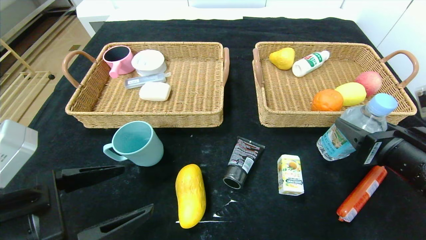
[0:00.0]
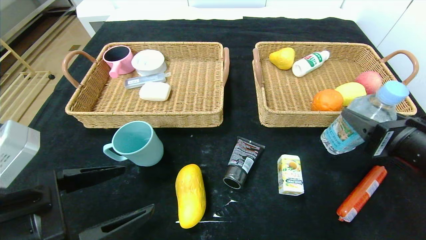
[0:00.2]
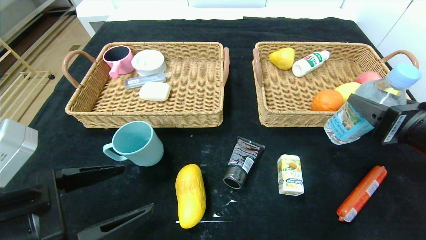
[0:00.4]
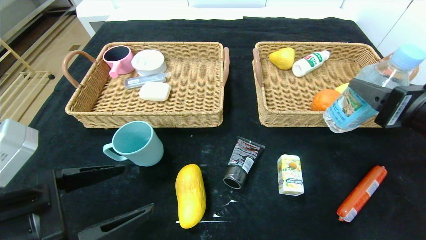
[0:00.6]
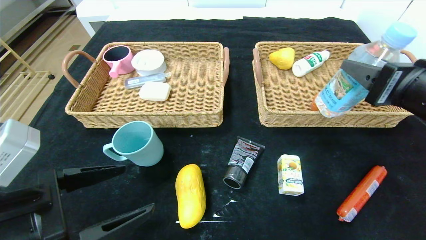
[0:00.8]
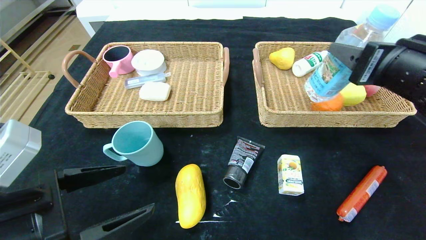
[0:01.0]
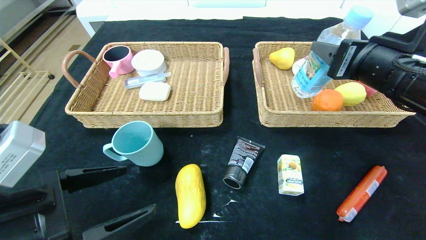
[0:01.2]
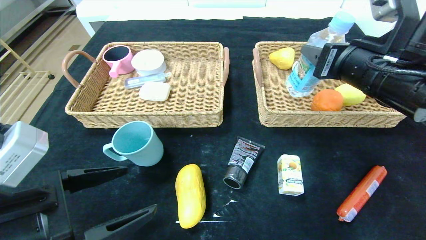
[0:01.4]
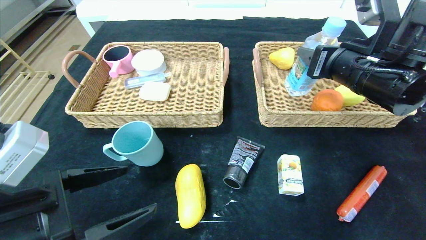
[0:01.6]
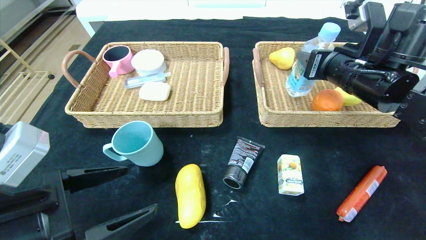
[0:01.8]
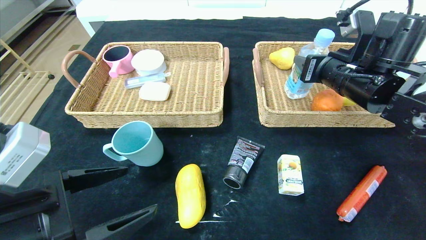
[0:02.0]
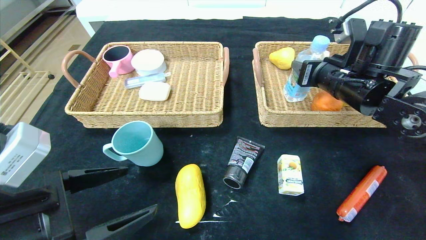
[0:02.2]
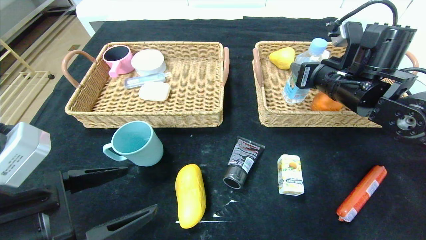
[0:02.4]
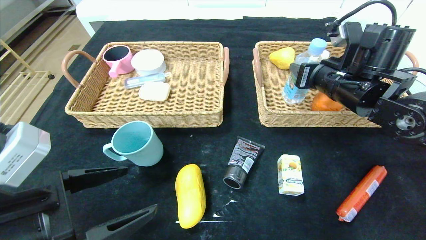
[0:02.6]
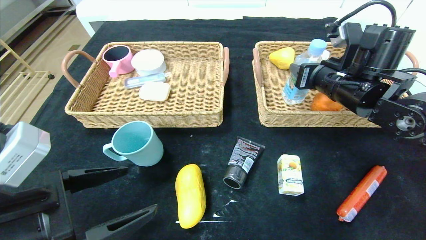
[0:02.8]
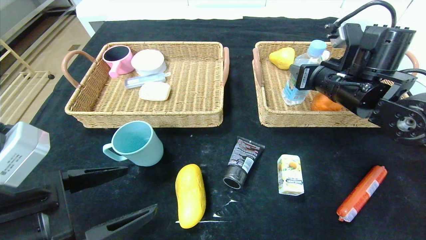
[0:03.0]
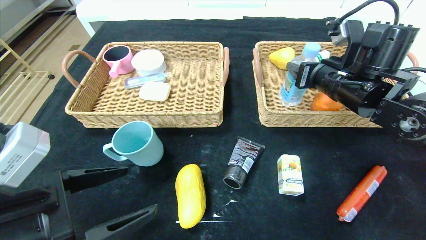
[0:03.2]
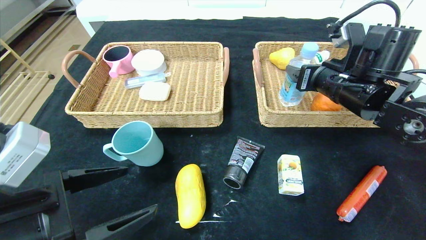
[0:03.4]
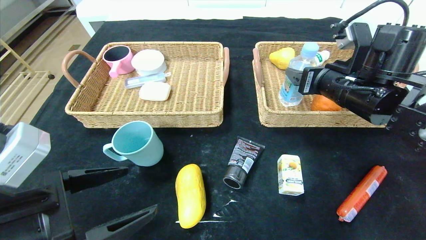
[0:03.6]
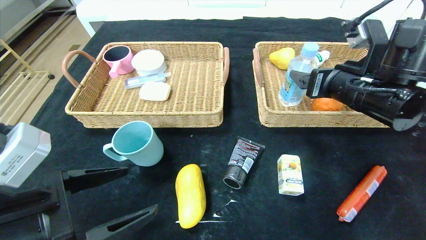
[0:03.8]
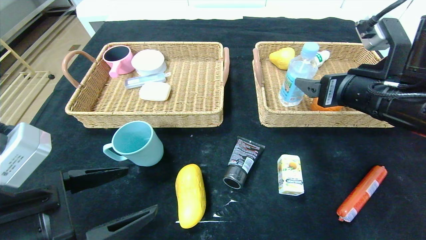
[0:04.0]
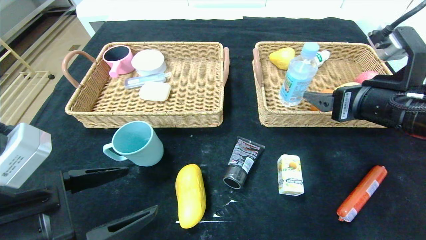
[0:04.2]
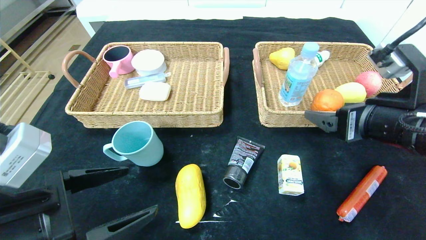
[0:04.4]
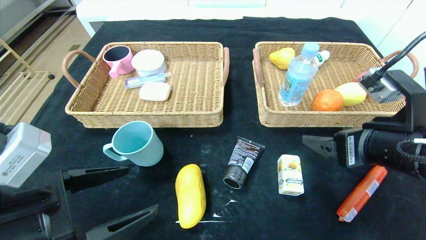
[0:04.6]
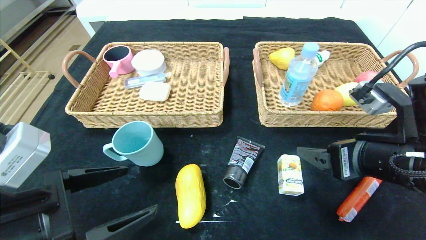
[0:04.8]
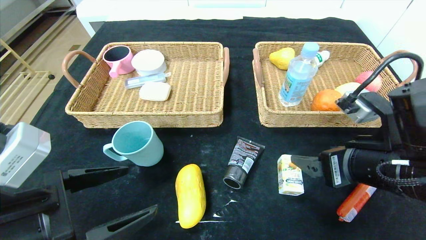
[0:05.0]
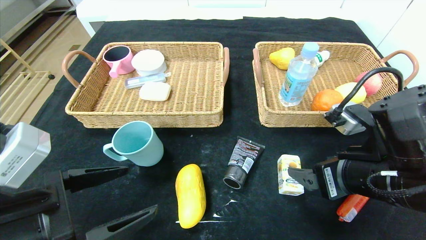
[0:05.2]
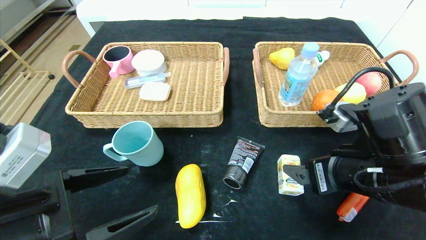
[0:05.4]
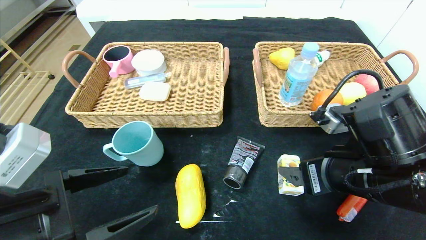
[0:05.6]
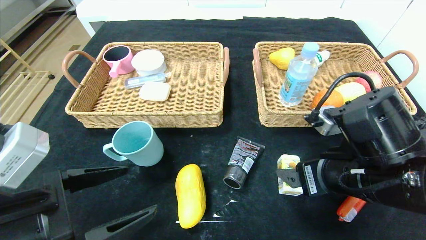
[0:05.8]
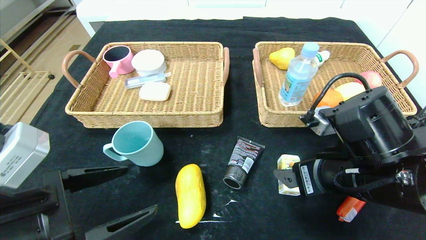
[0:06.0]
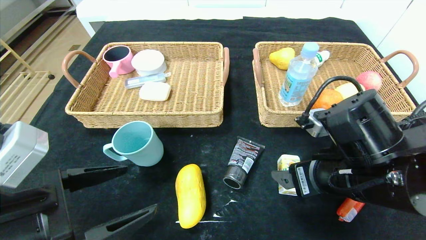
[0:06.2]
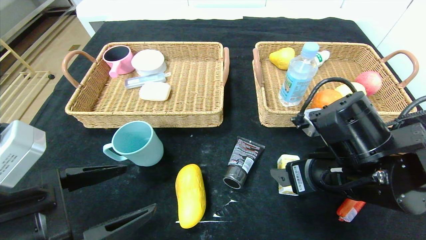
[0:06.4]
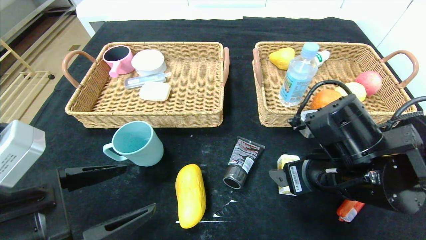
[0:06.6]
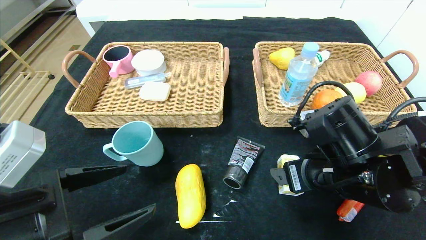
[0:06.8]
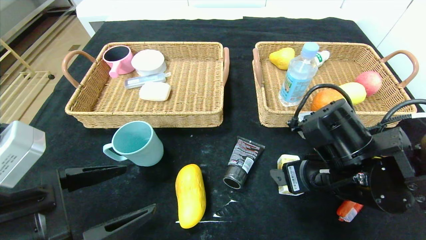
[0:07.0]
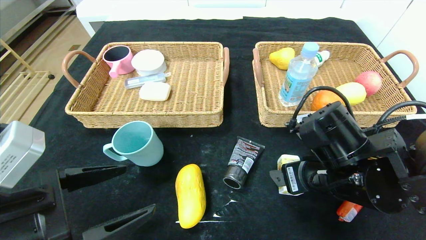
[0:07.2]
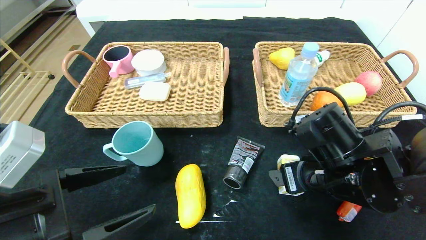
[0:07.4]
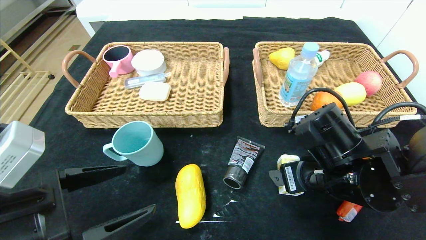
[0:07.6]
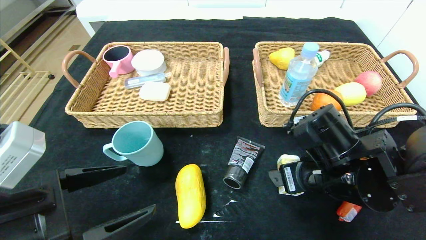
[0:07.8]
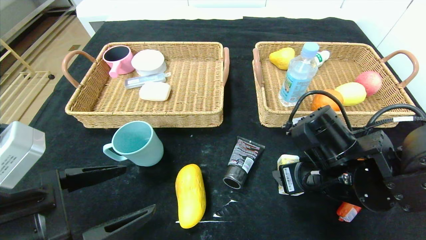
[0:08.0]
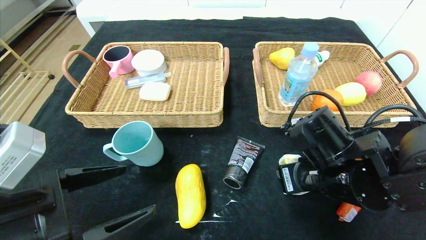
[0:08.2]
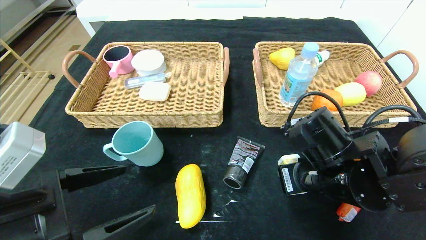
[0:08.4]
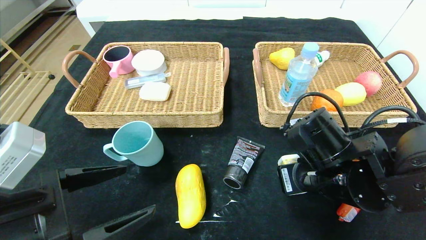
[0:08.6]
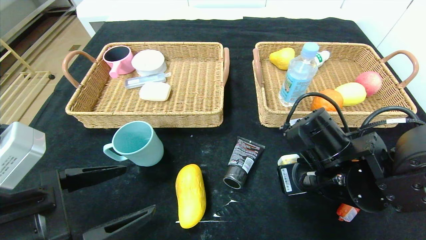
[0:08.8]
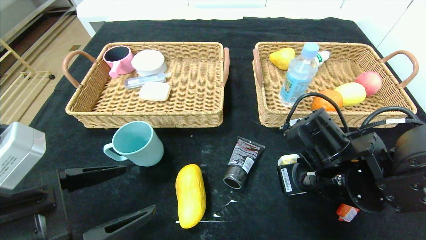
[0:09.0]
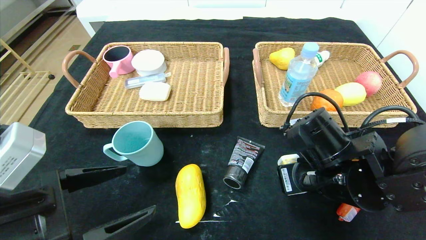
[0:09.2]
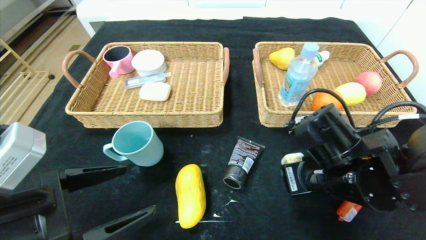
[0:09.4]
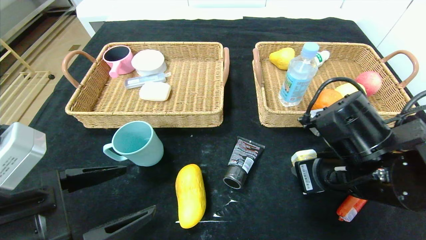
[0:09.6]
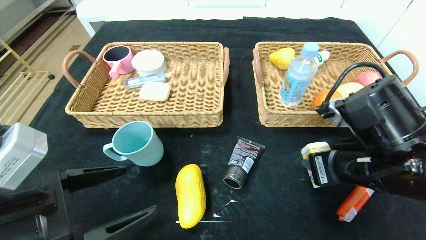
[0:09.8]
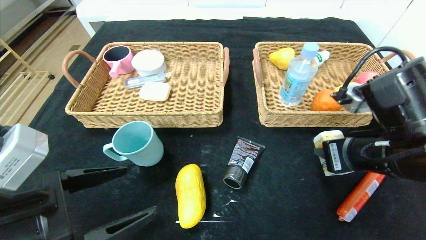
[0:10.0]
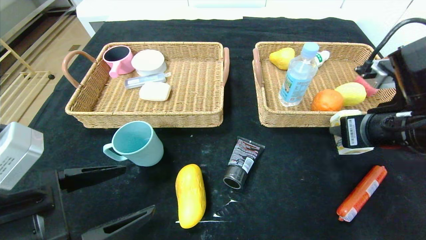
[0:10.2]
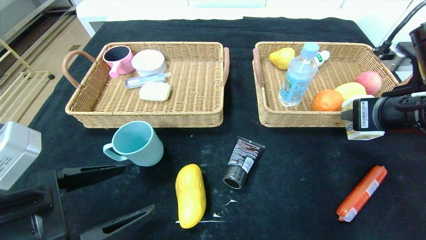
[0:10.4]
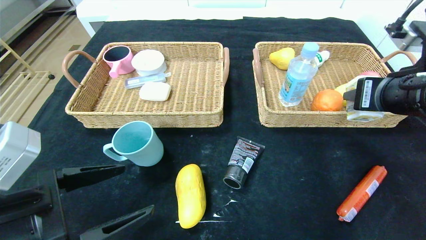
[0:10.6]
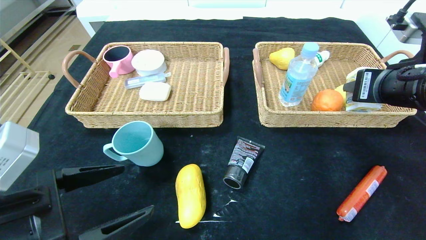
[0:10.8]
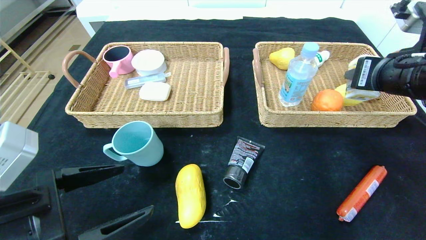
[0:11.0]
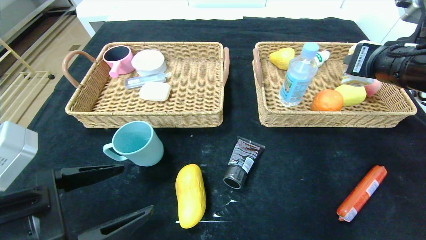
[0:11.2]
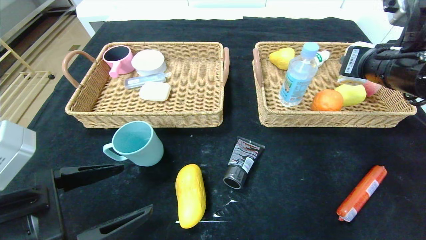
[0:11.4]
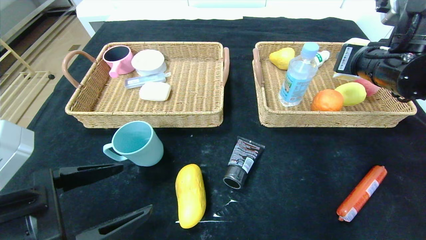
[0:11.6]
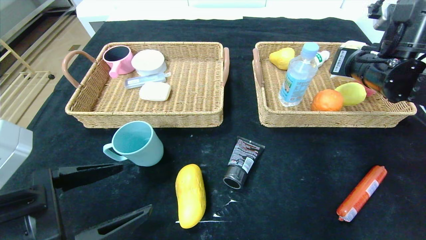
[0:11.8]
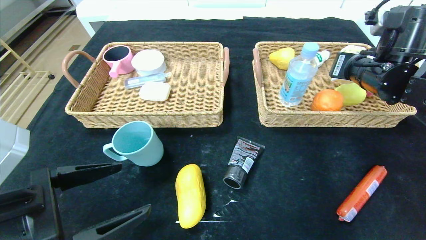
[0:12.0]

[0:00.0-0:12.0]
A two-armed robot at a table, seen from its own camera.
Step, 0:00.0 to 0:03.6: Grasp the soda water and put it in the right basket.
0:00.0 to 0:01.6: The right gripper shifts about 15 cm forward and upward.
0:01.6 to 0:03.0: The right gripper ends up some 5 cm from where it was.
0:03.0 to 0:04.4: The right gripper moves backward, roughly 15 cm, and opens its fingers.
0:04.4 to 0:06.0: The right gripper heads to the left and downward, covering approximately 10 cm.
0:06.0 to 0:07.6: The grippers move only a little.
0:07.6 to 0:09.0: The right gripper closes its fingers.
0:09.0 to 0:10.4: The right gripper shifts some 15 cm upward and to the right.
0:10.4 to 0:12.0: The right gripper shifts roughly 10 cm forward.

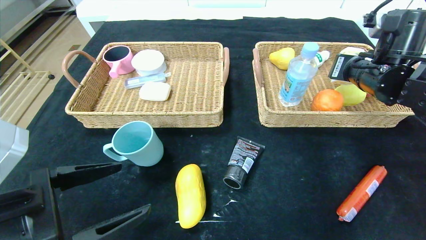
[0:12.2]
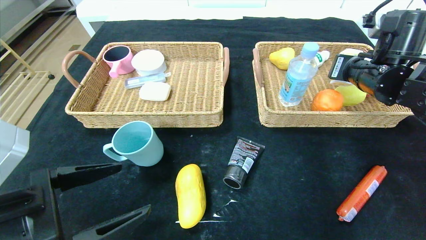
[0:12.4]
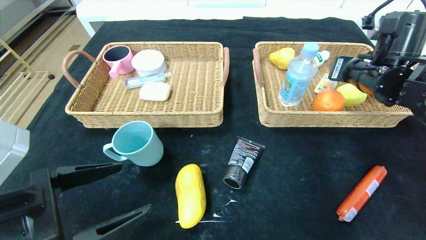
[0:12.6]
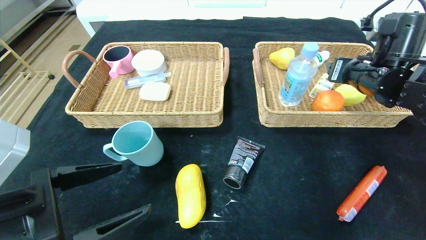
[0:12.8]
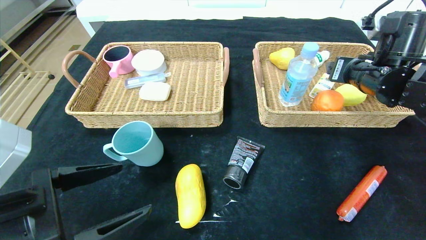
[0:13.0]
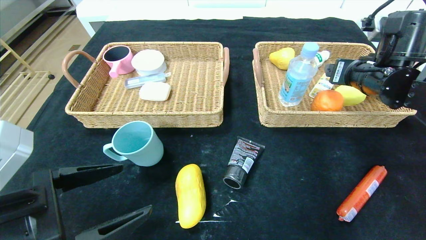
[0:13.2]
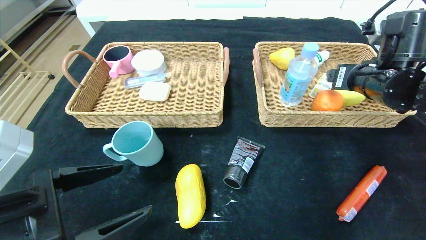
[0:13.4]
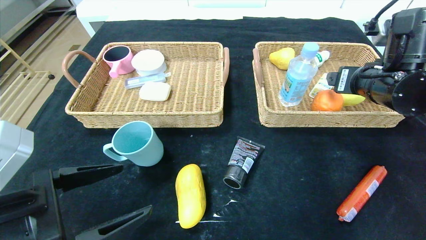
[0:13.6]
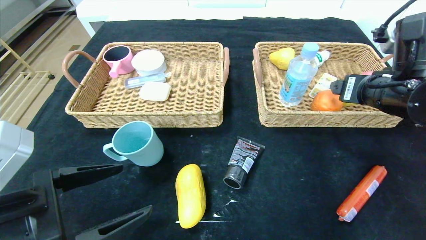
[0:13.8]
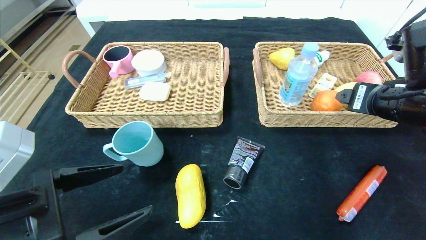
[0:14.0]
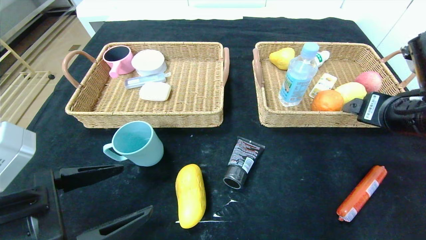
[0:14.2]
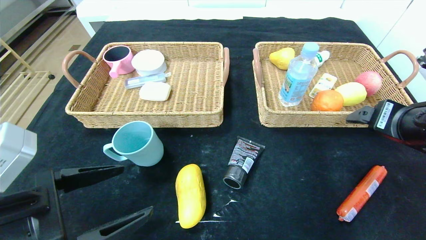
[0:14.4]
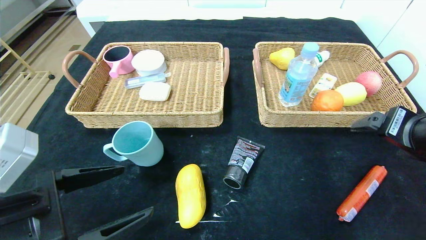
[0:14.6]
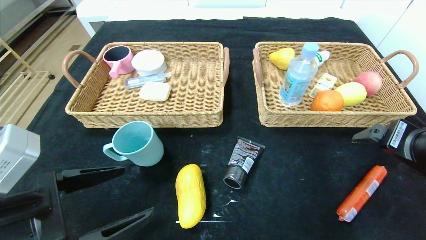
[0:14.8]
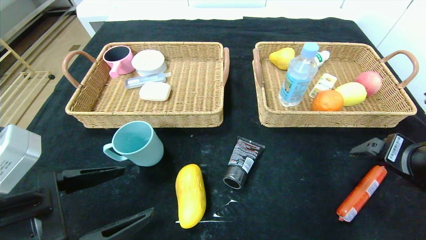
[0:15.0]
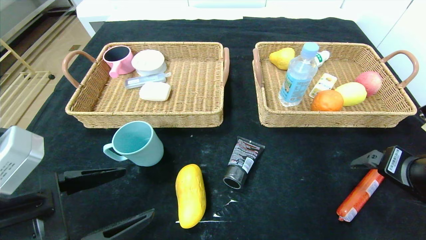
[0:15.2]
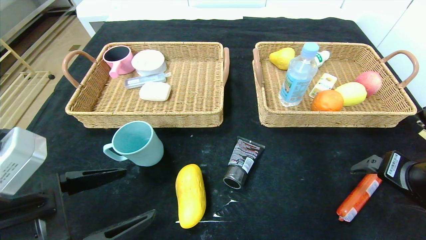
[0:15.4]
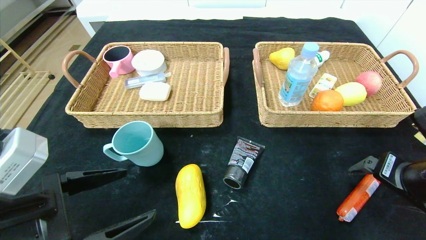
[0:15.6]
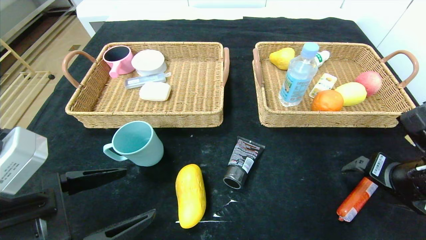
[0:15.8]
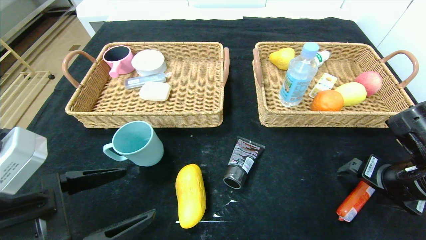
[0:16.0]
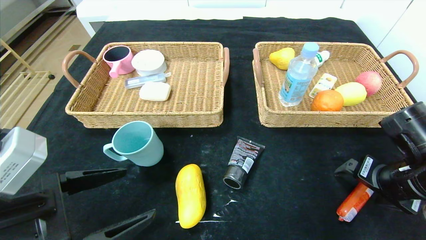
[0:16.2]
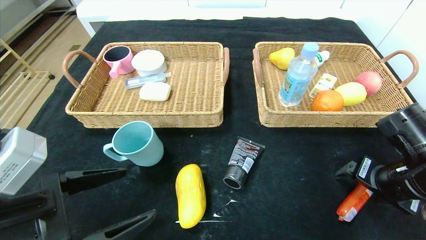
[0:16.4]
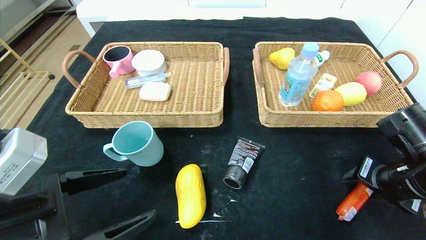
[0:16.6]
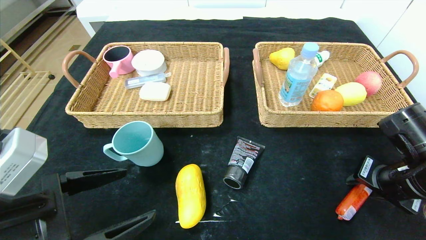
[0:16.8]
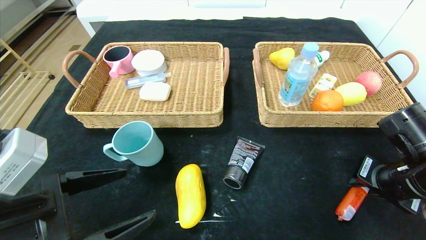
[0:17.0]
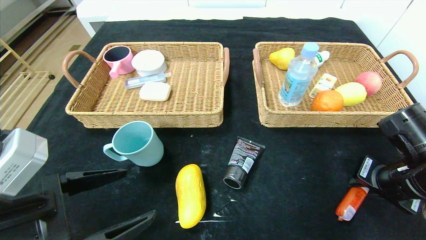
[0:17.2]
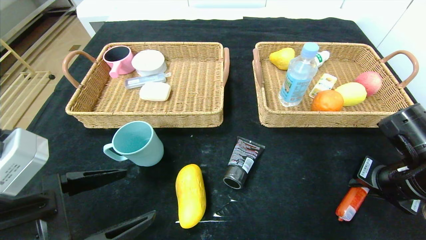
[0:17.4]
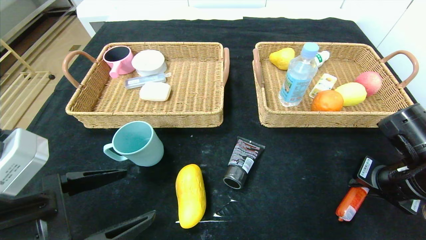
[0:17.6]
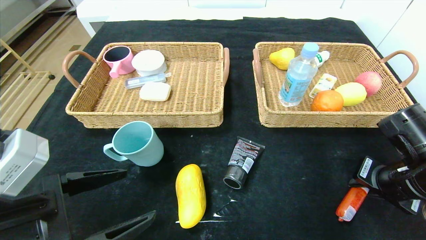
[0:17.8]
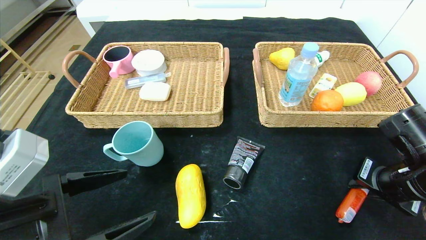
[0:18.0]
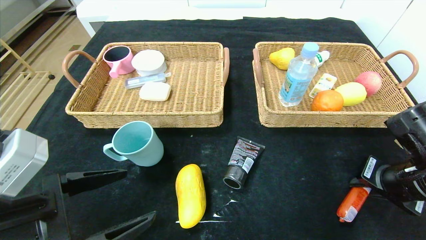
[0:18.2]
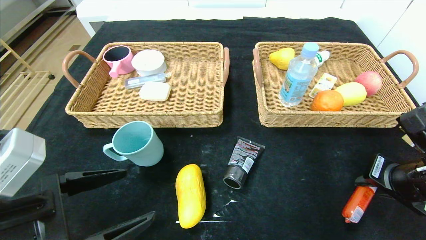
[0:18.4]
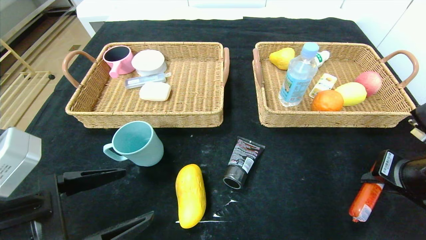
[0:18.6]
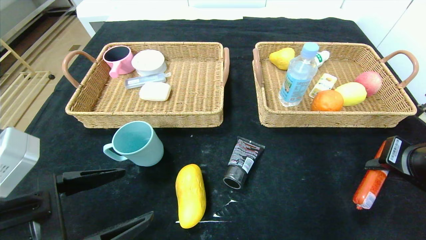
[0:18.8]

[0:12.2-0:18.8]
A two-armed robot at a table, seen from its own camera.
0:12.2 to 0:13.8: The right gripper travels backward by some 5 cm, and opens its fingers.
0:13.8 to 0:15.4: The right gripper travels backward and downward by roughly 10 cm.
0:15.4 to 0:17.2: The right gripper closes.
0:17.2 to 0:18.8: The right gripper is displaced upward by roughly 5 cm.
